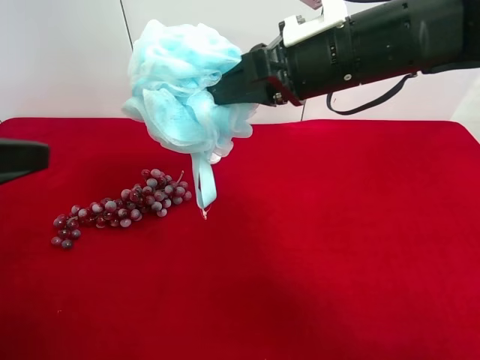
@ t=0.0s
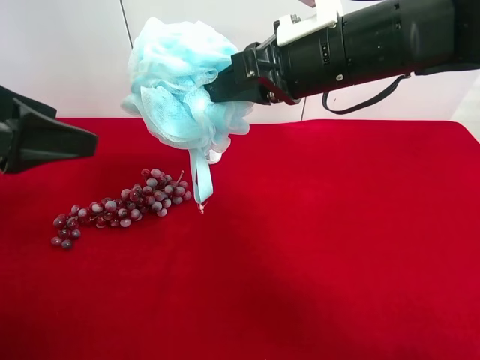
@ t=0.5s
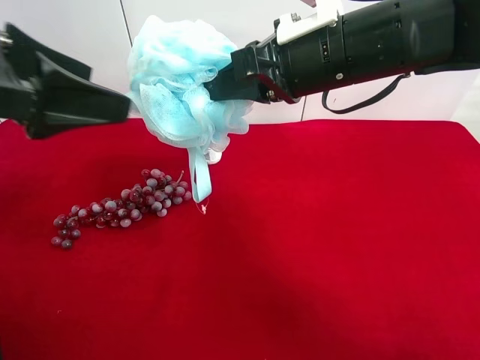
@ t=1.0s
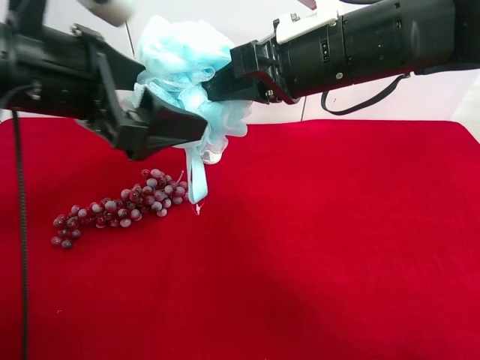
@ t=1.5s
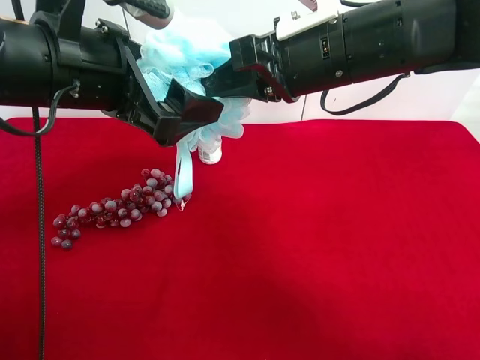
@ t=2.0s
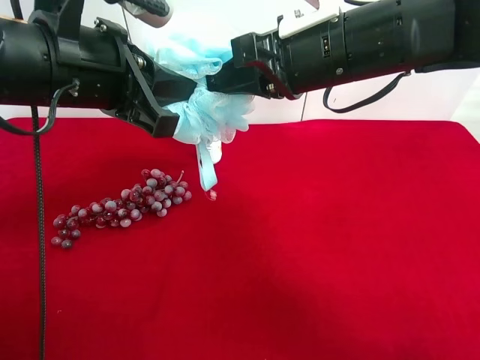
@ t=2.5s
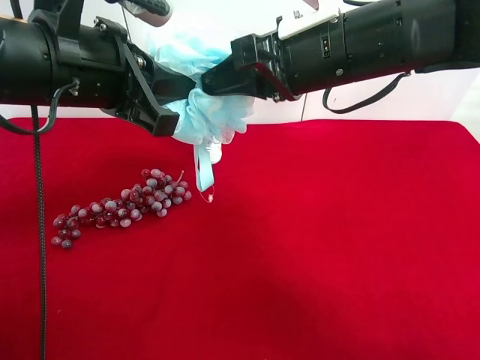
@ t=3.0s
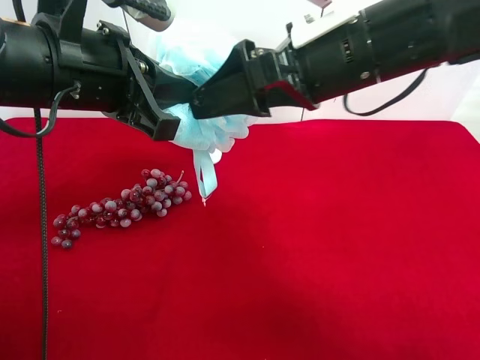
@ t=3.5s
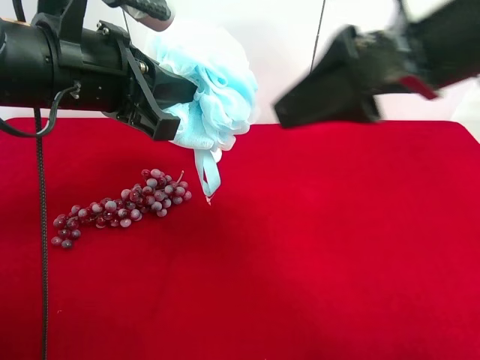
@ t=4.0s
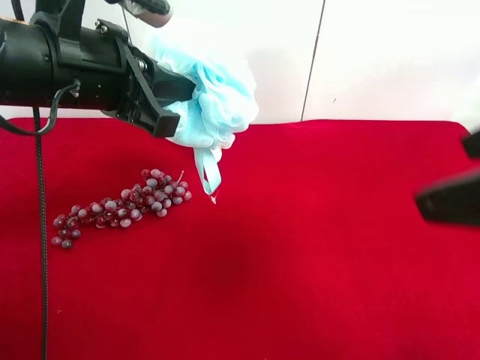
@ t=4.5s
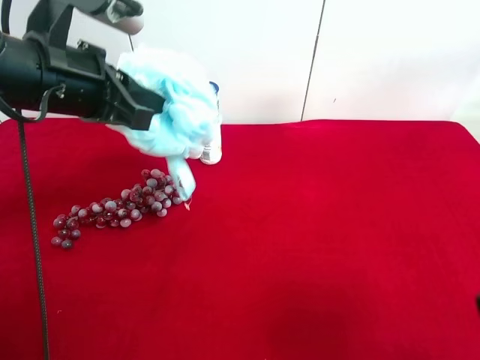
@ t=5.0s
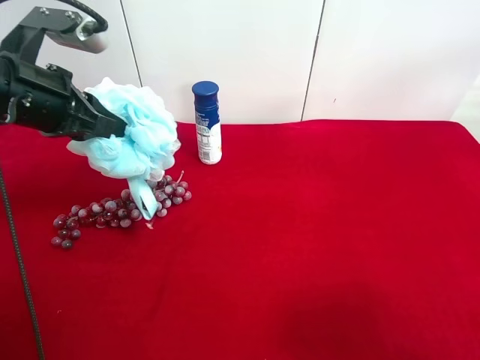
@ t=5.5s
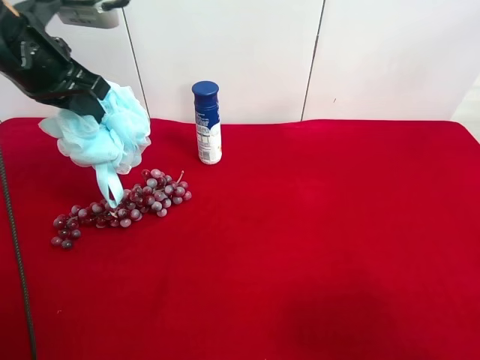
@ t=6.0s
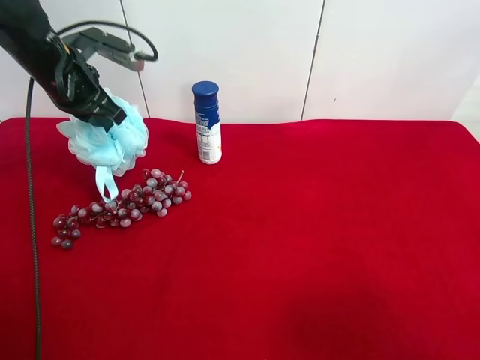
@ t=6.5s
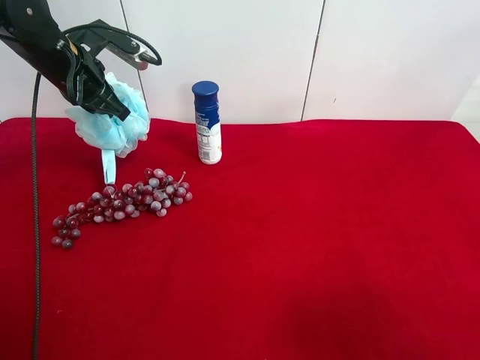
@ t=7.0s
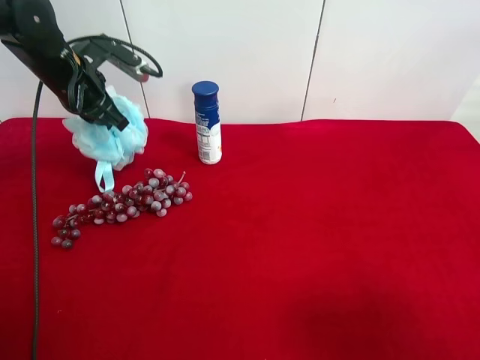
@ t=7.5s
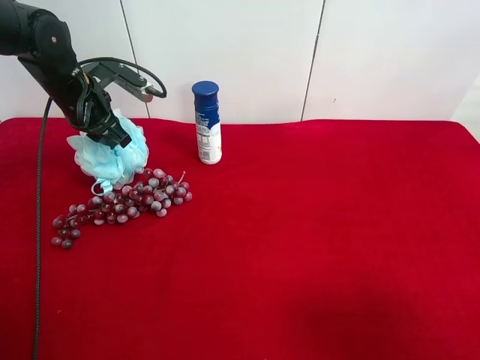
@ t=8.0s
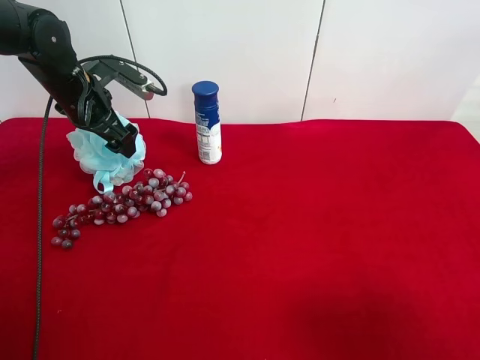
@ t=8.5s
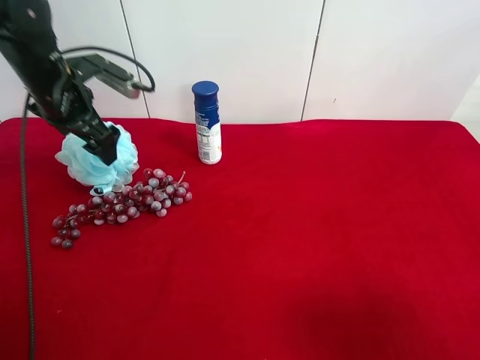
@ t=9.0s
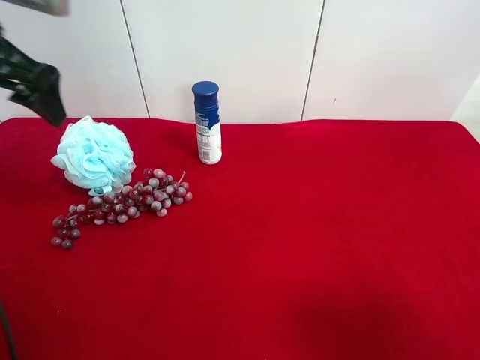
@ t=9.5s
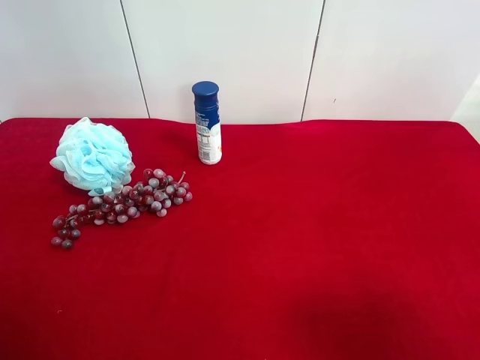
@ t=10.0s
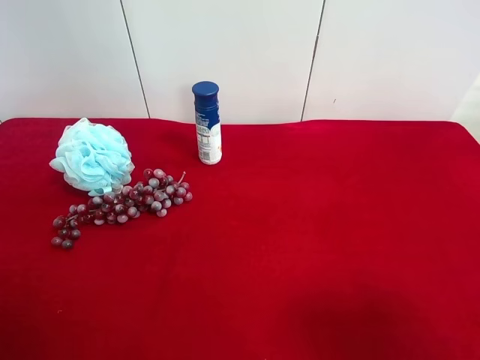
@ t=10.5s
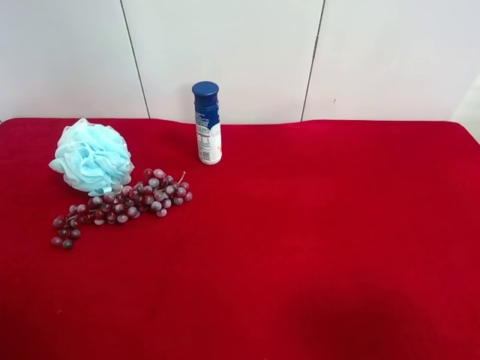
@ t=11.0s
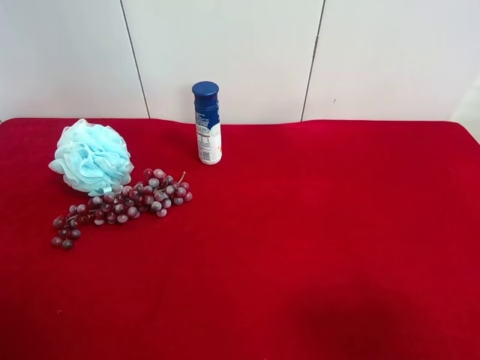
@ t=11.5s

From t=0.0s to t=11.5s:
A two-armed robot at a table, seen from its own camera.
Task of the whole recording: use the right gripper to pick up the item and transfer it from the right gripper to the left gripper.
Step, from t=0.0s to t=3.0s: Pass the shower sphere to the left gripper.
Step, from t=3.5s to t=8.5s: The left gripper places shower sphere on the left side of the table.
From t=0.0s to t=2.0s: The left gripper moves to the right and forward, about 15 cm.
From t=2.0s to t=4.0s: The left gripper closes. Meanwhile the right gripper goes some 15 cm backward, to the right and upward, and opens.
From t=4.0s to t=6.0s: The right gripper travels backward, to the right and downward by about 25 cm. The left gripper travels forward and to the left by roughly 15 cm.
From t=6.0s to t=7.5s: The left gripper moves downward and forward, roughly 10 cm.
From t=7.5s to t=9.5s: The left gripper heads upward and backward, covering roughly 15 cm, and opens its fingers.
From t=9.5s to t=11.5s: The left gripper travels backward by some 30 cm.
